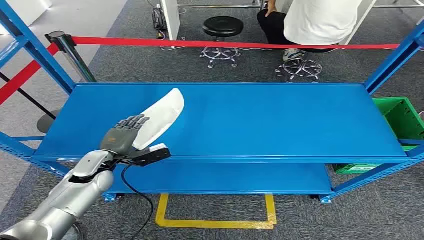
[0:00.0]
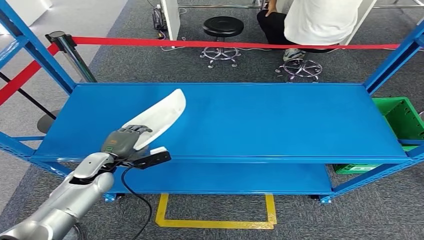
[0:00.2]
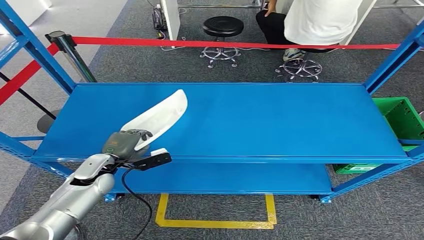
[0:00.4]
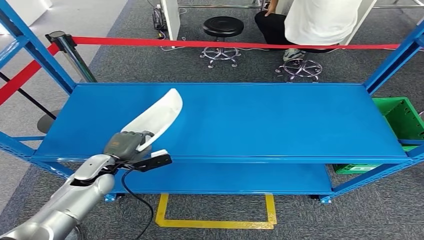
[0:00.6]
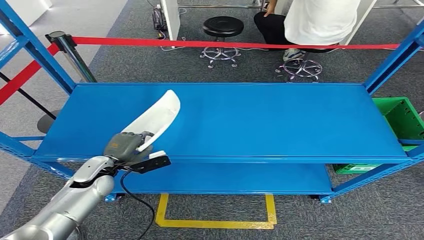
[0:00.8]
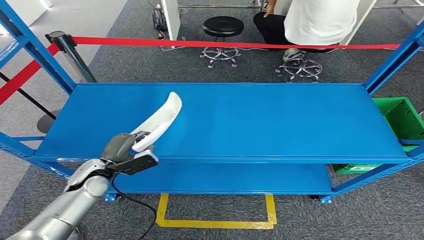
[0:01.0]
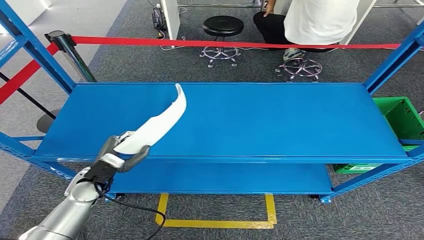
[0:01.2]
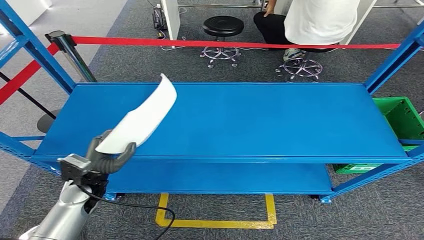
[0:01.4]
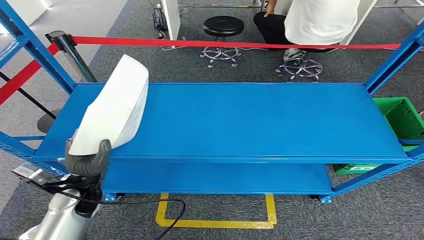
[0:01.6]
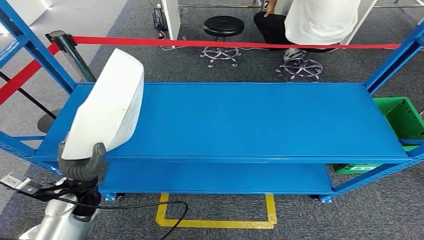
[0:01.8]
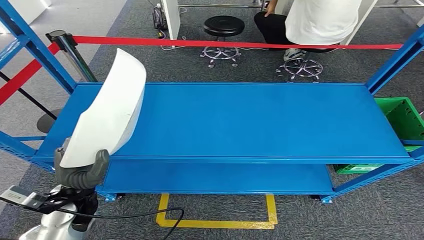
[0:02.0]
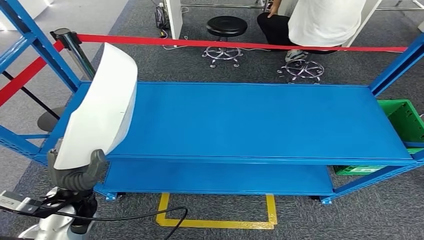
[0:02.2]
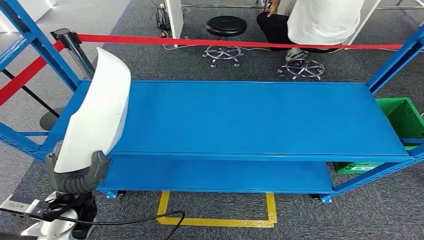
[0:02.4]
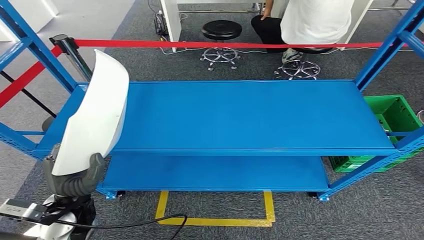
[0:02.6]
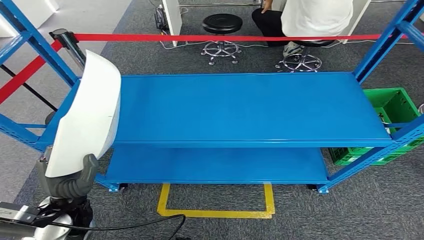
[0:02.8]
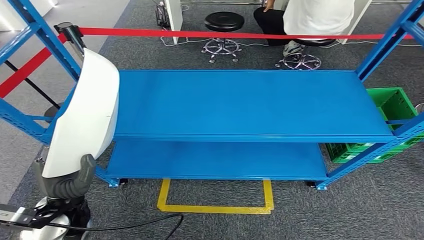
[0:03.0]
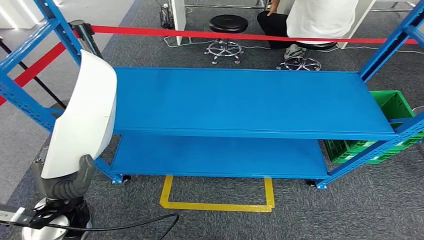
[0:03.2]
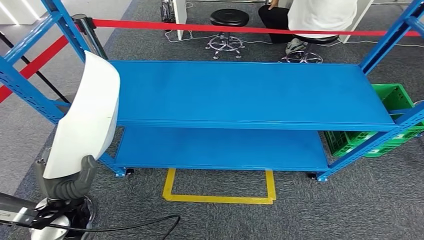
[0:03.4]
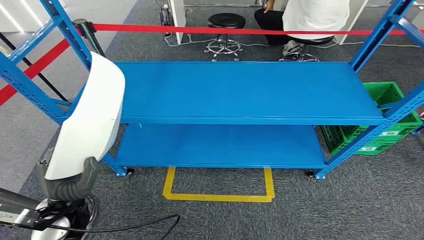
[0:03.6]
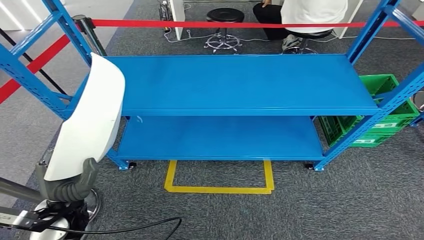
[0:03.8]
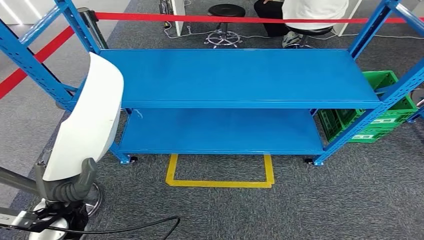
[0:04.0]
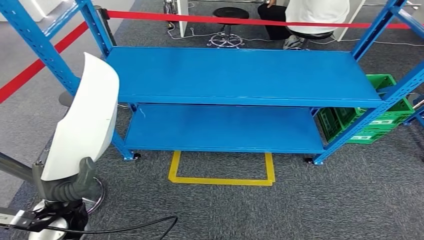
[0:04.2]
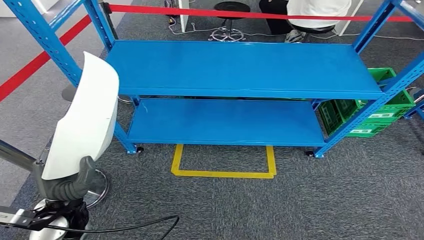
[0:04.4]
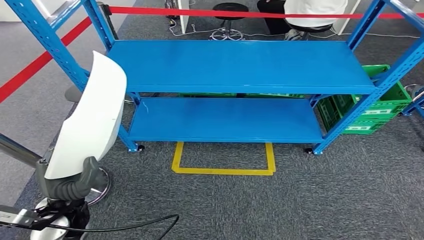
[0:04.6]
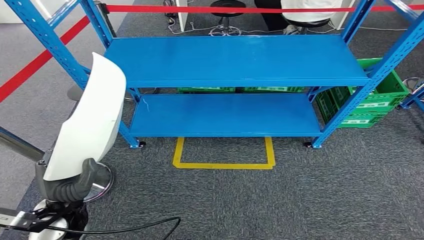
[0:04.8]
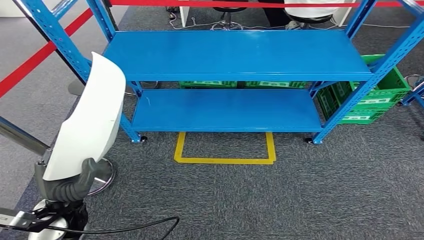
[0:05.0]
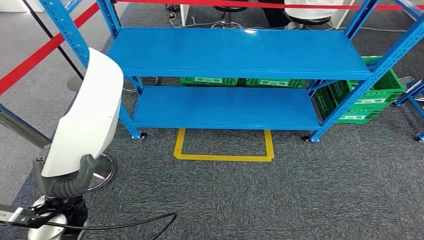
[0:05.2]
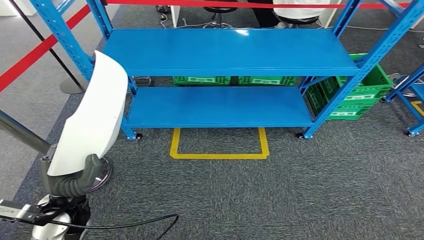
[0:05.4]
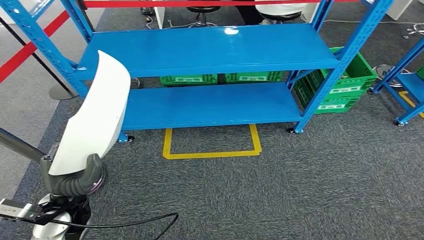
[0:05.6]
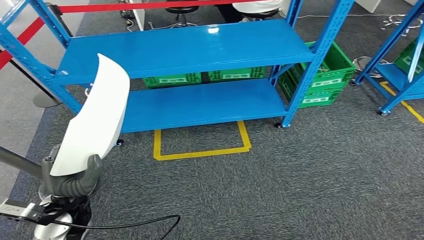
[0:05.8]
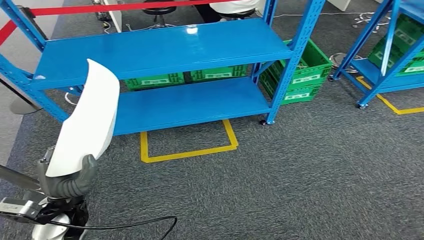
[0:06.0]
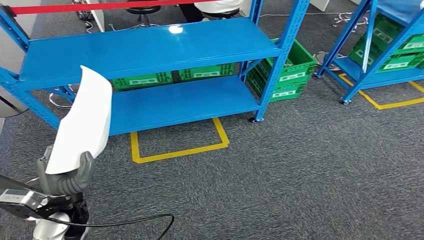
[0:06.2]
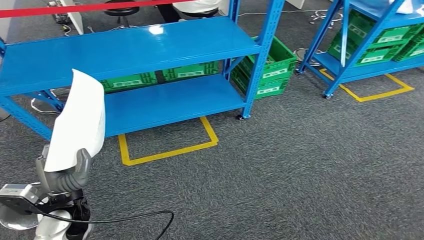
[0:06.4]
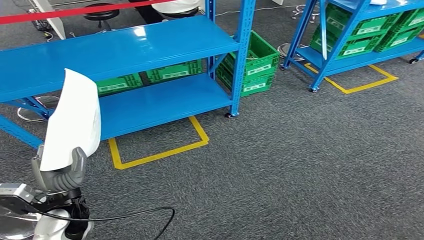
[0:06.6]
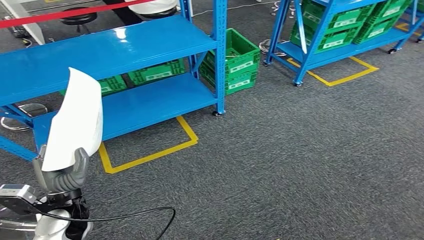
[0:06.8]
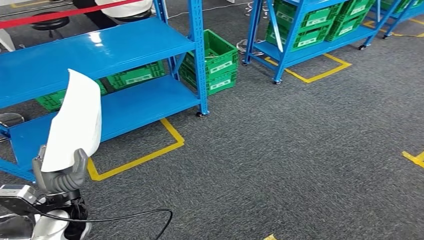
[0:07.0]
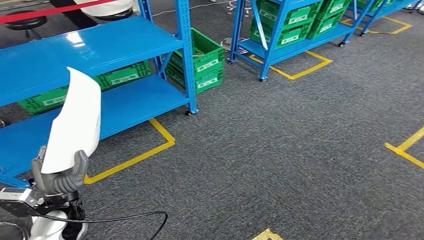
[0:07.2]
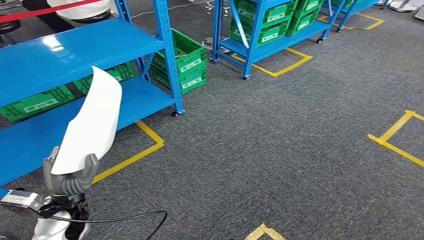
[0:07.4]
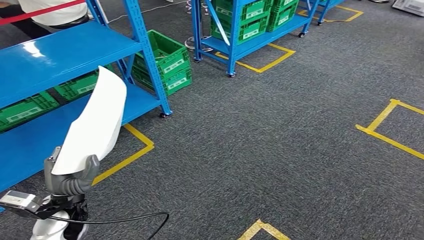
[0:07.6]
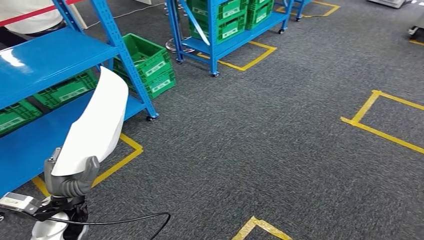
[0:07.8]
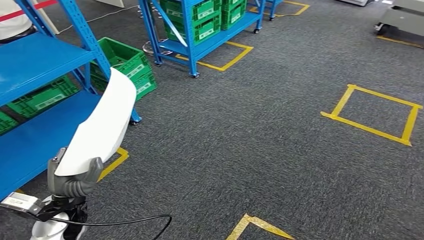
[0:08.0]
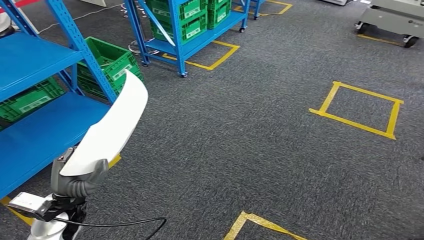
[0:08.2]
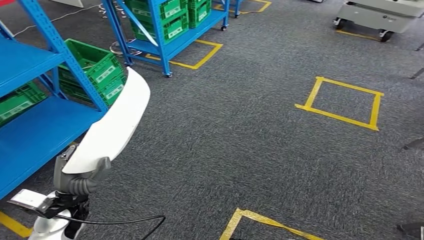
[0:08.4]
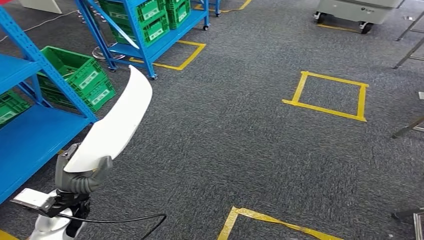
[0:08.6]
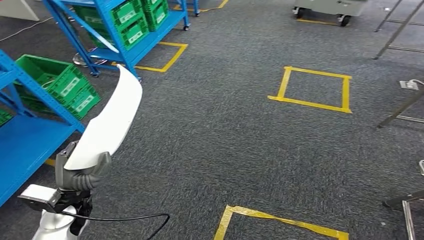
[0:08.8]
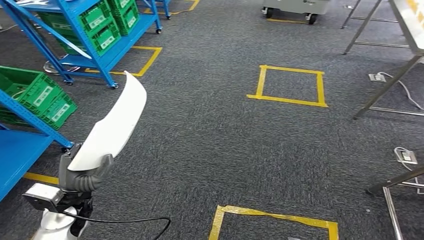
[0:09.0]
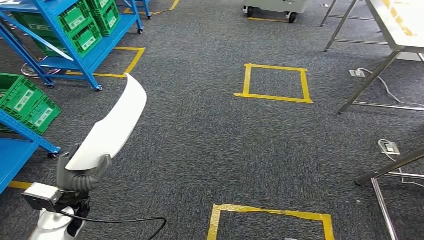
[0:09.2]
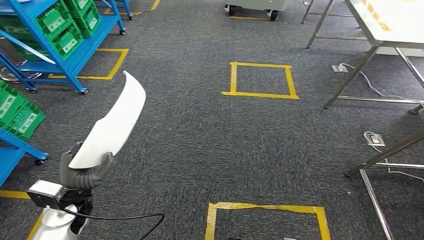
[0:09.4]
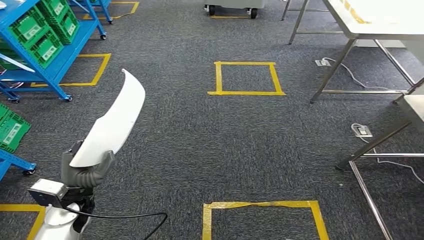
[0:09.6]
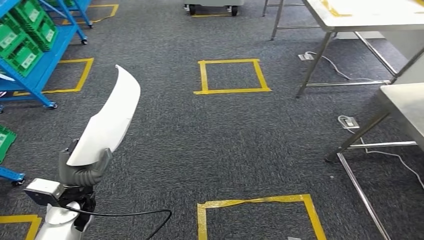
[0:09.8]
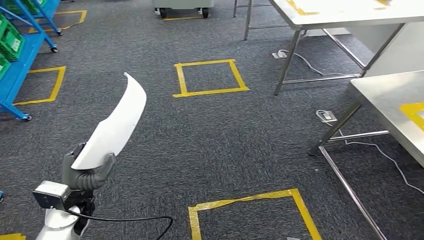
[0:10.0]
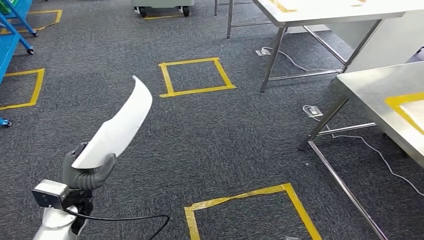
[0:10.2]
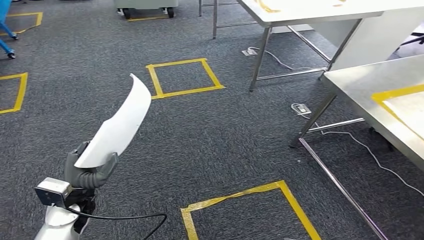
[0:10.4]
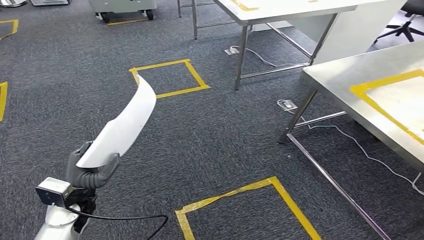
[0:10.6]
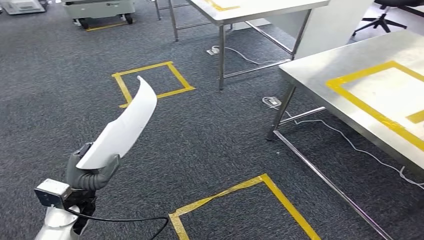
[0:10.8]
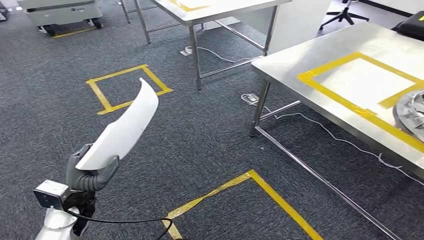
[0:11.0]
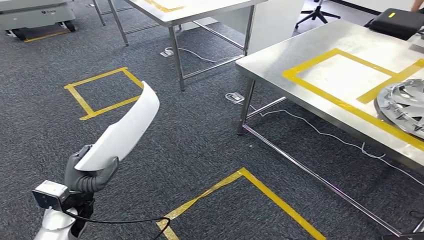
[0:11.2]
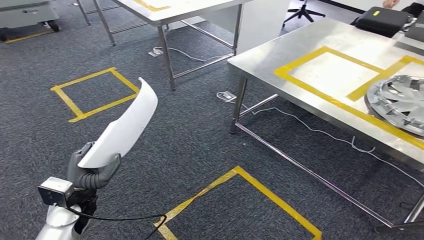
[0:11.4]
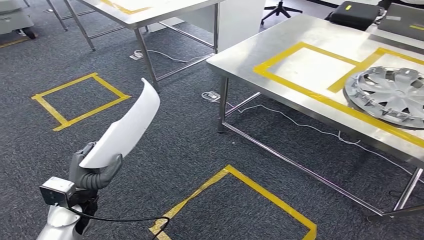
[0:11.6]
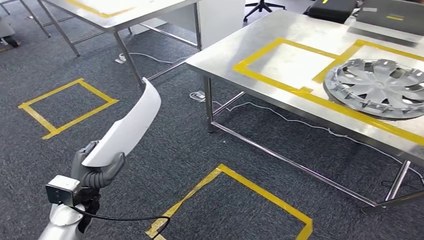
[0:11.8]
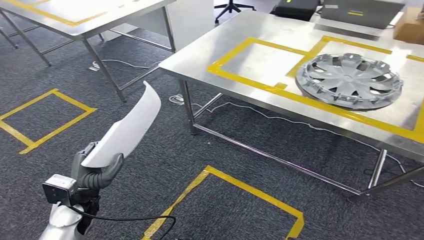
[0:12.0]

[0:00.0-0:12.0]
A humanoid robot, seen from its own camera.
Step, 0:00.0 to 0:03.8: Pick up the small component from the shelf.

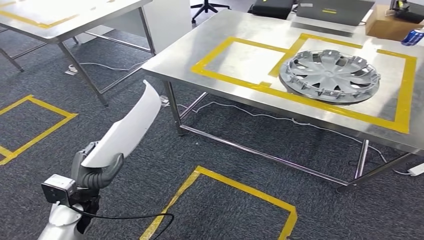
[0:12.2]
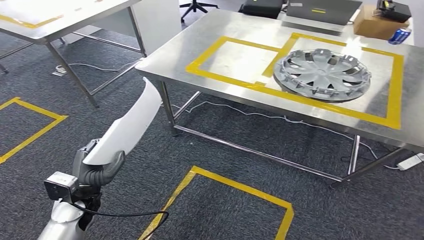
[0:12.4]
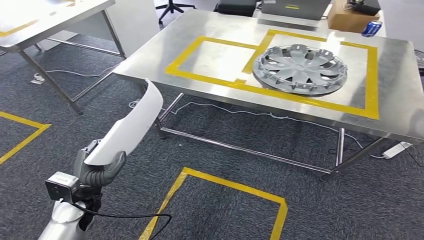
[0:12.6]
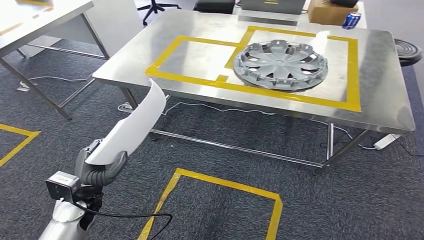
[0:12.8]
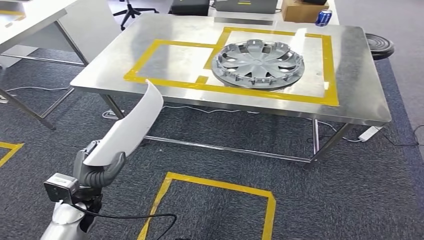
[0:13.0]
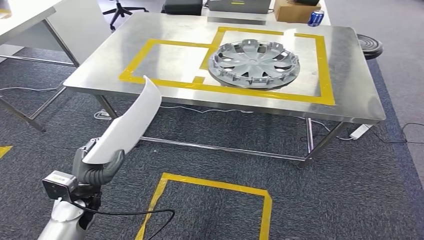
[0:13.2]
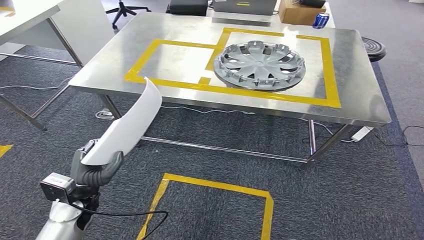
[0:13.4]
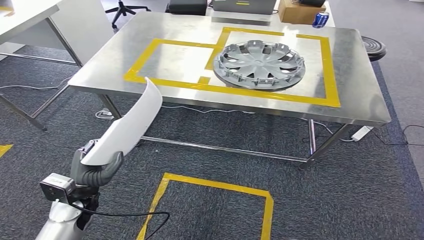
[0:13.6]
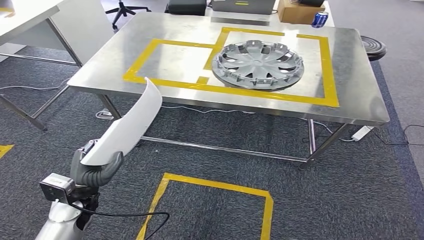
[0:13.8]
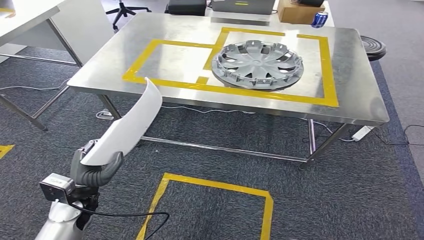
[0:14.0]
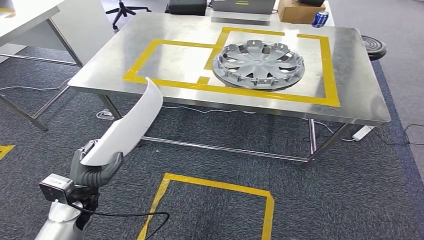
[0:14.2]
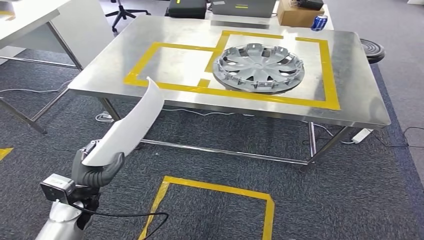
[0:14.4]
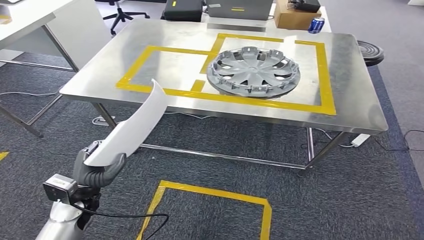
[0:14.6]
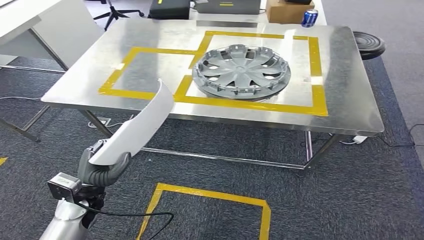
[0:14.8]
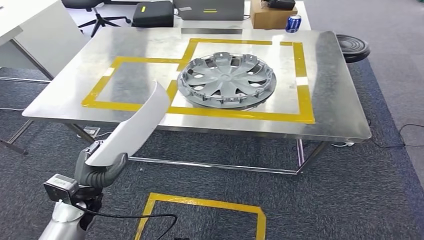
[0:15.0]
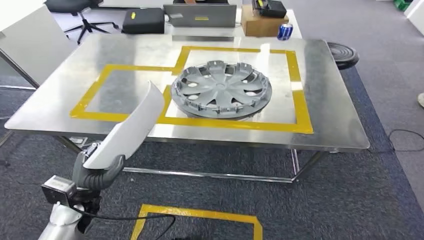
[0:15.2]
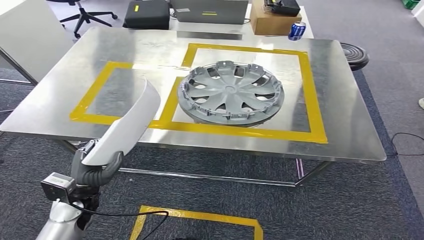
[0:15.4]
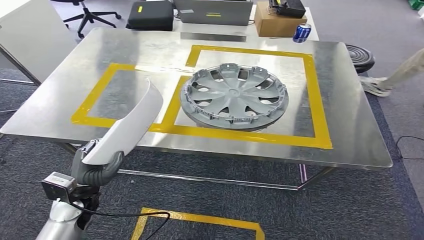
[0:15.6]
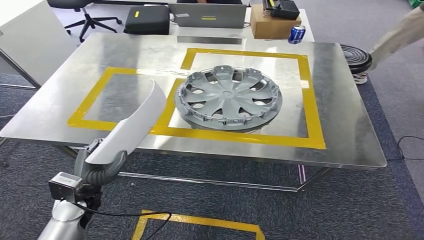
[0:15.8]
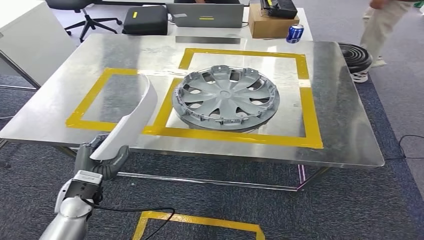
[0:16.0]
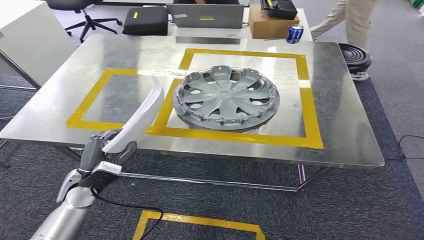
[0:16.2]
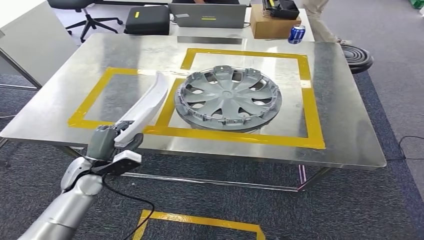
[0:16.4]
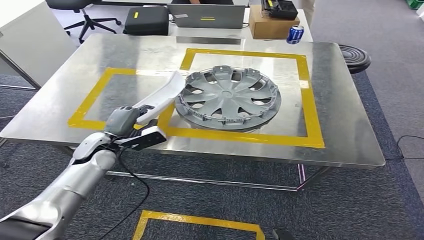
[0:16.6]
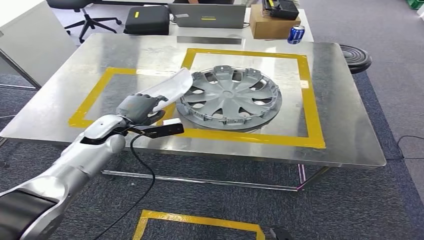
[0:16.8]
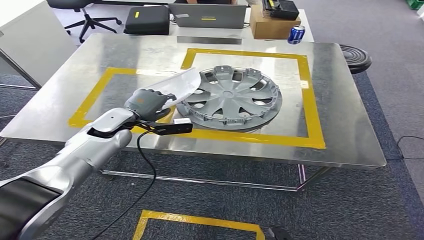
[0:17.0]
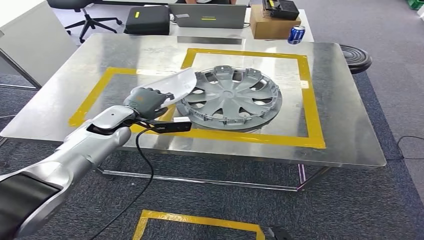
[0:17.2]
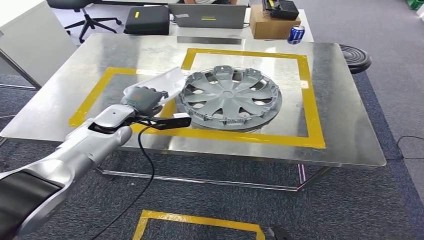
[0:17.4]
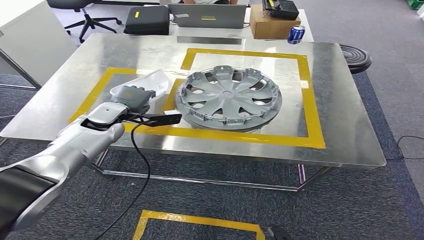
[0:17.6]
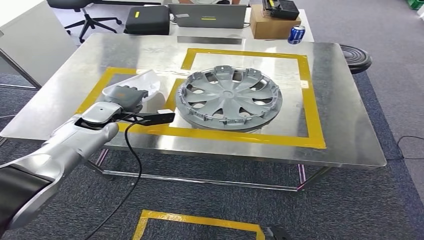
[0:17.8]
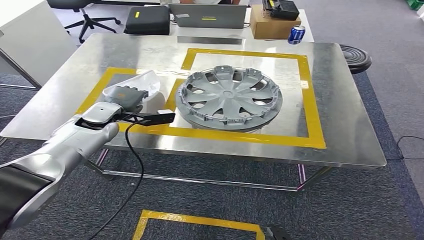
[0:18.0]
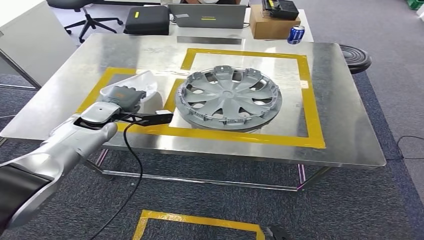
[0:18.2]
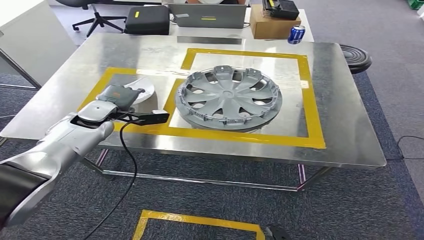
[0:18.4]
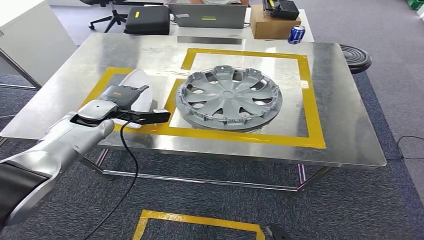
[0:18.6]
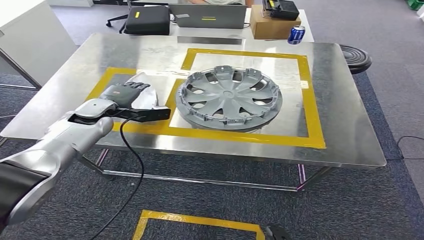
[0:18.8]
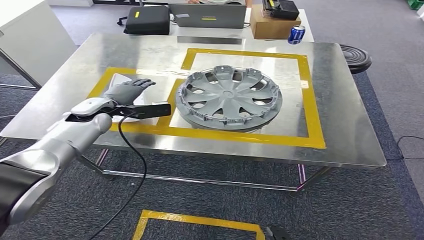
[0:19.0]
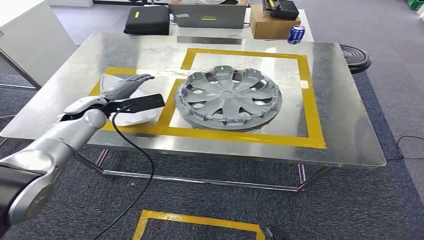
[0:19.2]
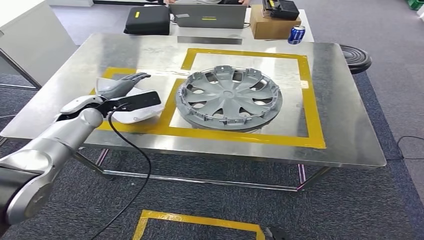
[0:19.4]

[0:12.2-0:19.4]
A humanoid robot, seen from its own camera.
Step, 0:12.2 to 0:15.0: Bring the small component to the front of the workbench.
0:16.6 to 0:18.0: The left hand heads forward and upward, covering approximately 10 cm.
